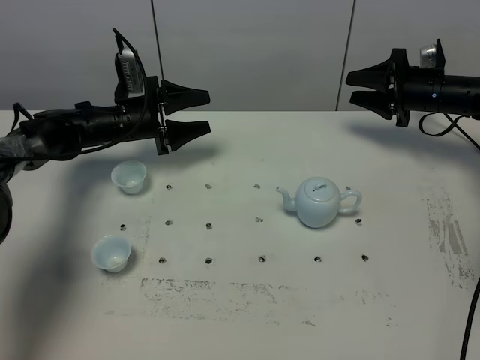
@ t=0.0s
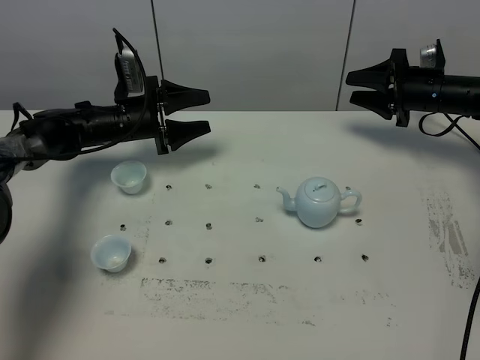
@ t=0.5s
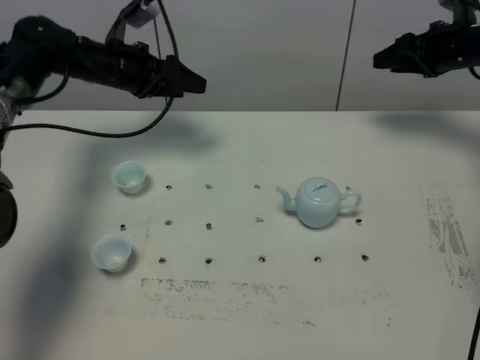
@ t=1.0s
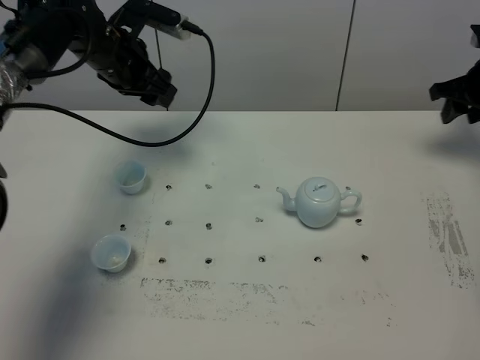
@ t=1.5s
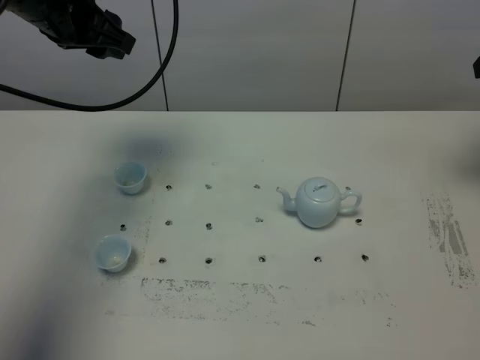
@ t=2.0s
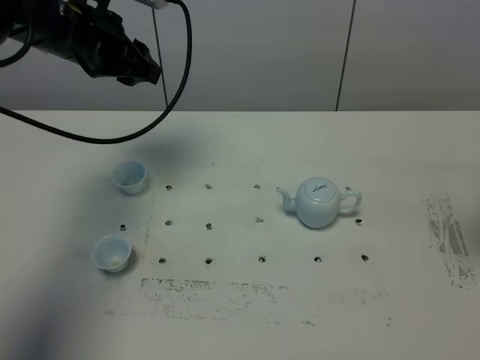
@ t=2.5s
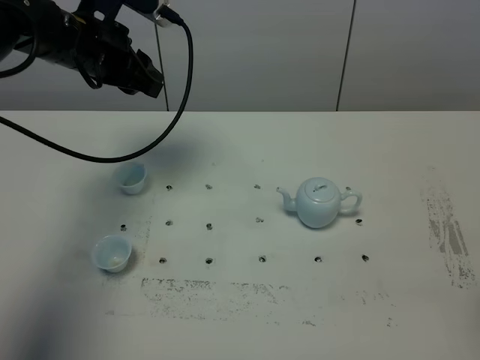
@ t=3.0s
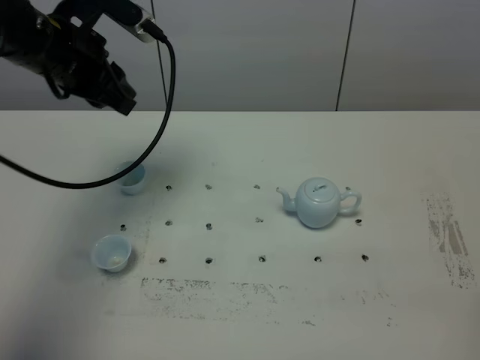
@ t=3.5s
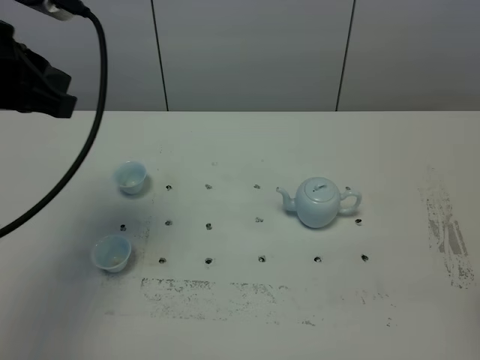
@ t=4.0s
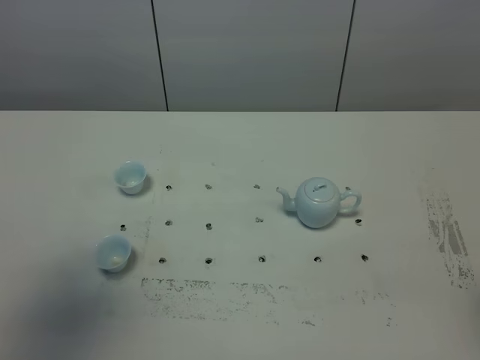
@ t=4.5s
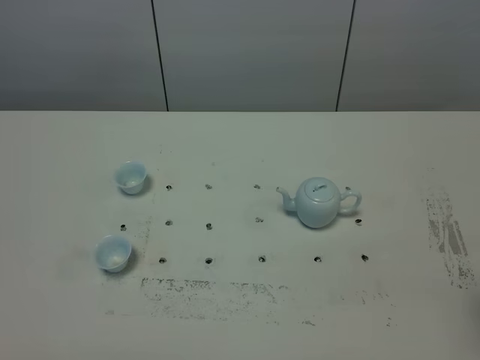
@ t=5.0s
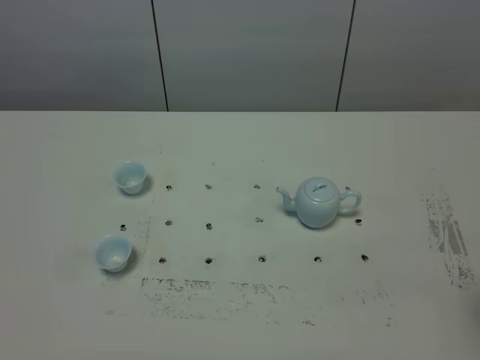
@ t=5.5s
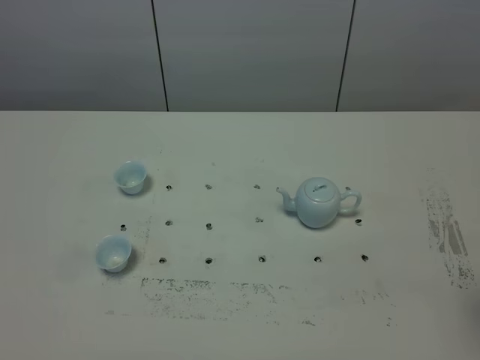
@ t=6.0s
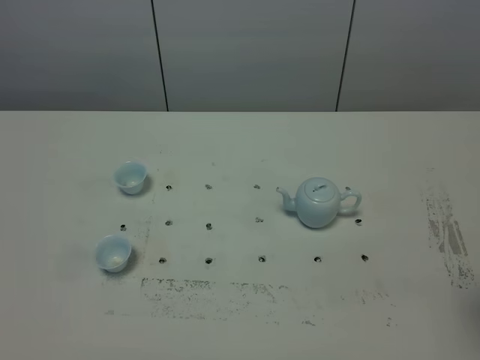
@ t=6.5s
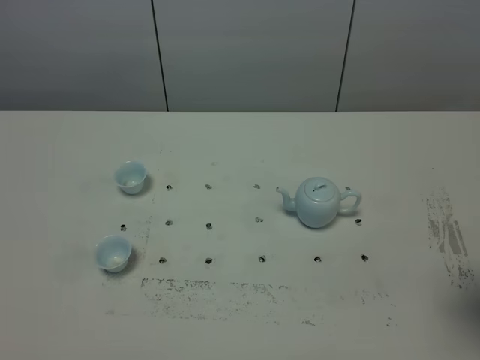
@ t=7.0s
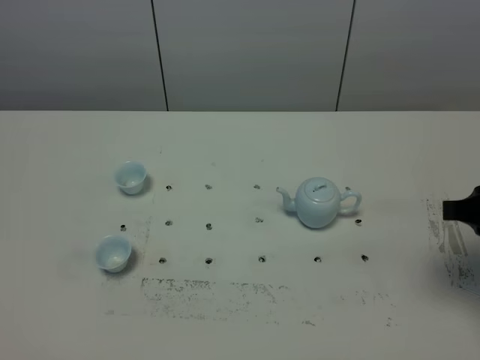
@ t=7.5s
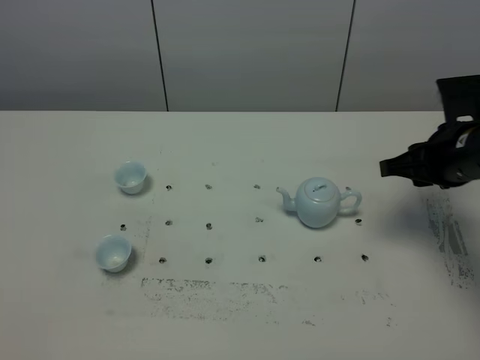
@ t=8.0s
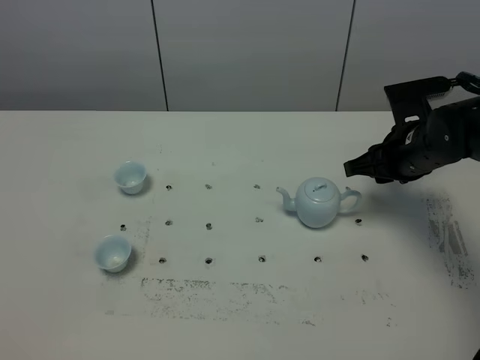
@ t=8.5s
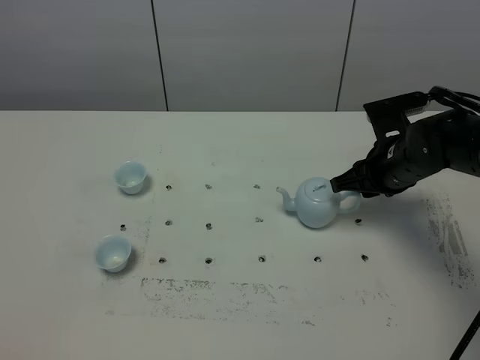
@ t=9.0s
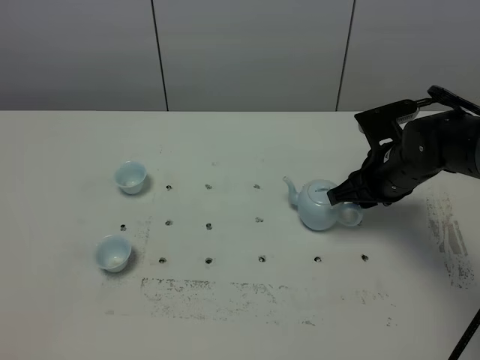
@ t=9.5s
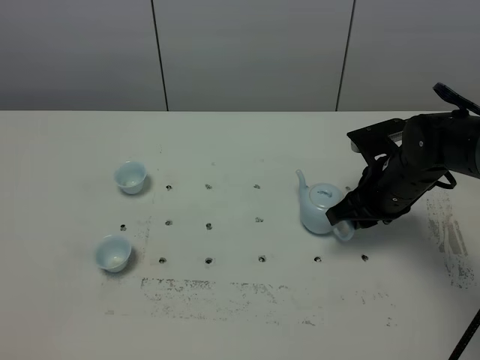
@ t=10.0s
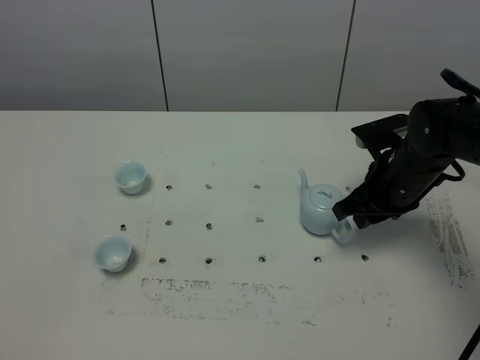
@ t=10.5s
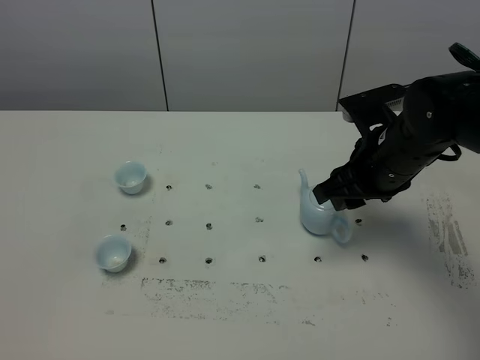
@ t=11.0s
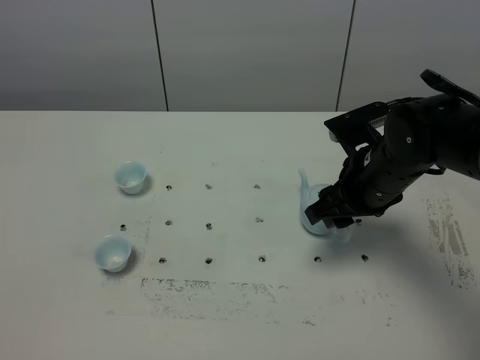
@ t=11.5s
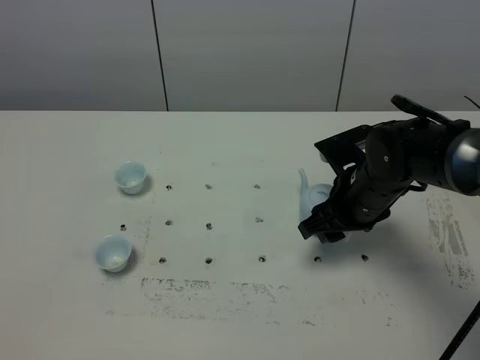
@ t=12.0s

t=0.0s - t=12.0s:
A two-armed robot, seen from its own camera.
Task of the whole recording: grasp the blue porcelain teapot and pour the tea into the two blue porcelain teacups one by one, put the blue porcelain teapot back in its original place.
t=0.0s - t=2.0s: The left gripper travels upward by about 25 cm, and closes. Meanwhile the right gripper shifts roughly 20 cm upward and backward.
t=2.0s - t=4.0s: The right gripper goes approximately 30 cm backward. The left gripper travels backward by approximately 15 cm, and closes up.
t=4.0s - t=6.0s: The left gripper heads backward and downward, covering approximately 30 cm.
t=6.0s - t=8.0s: The right gripper goes about 20 cm forward and downward.
t=8.0s - t=10.0s: The right gripper moves downward and to the left, roughly 10 cm.
t=10.0s - t=12.0s: The right gripper opens its fingers.

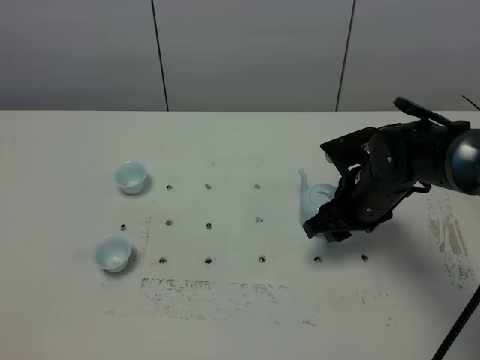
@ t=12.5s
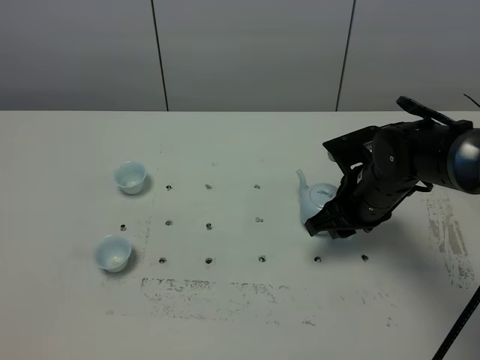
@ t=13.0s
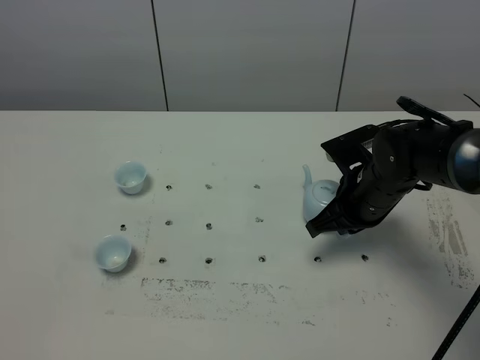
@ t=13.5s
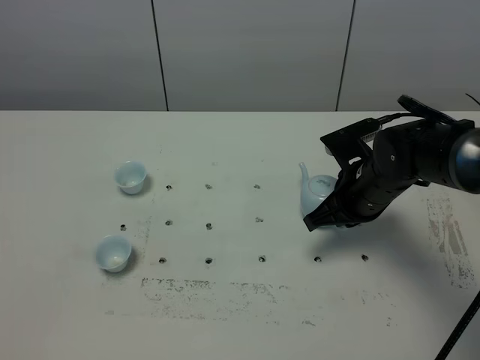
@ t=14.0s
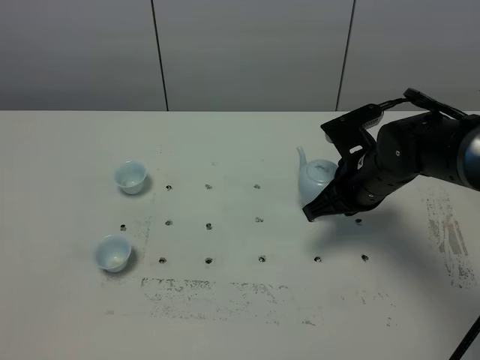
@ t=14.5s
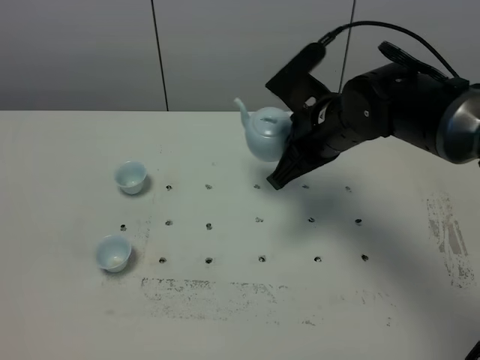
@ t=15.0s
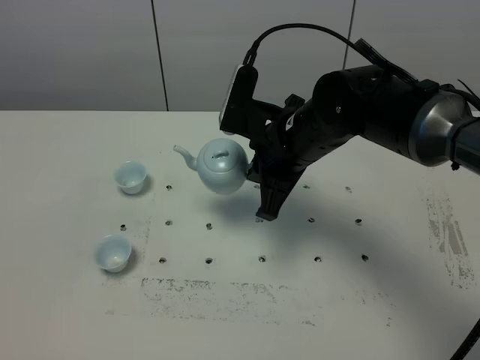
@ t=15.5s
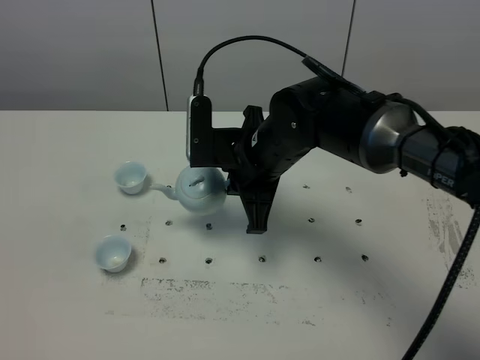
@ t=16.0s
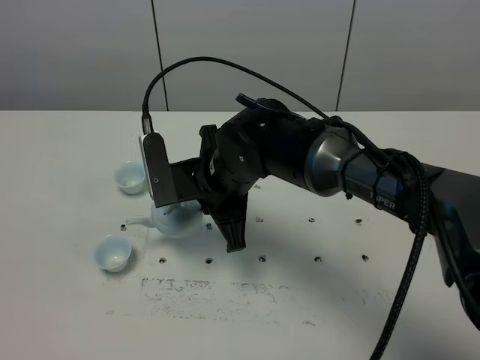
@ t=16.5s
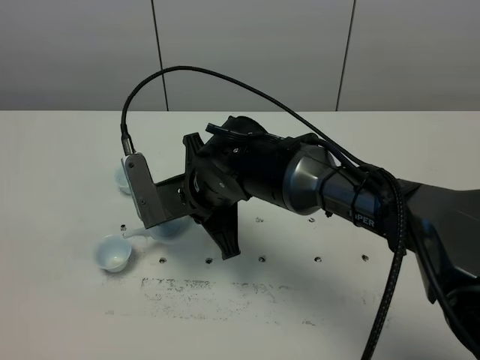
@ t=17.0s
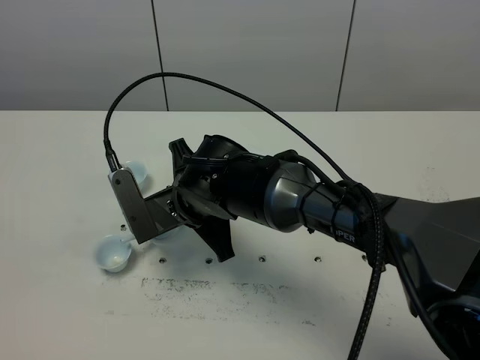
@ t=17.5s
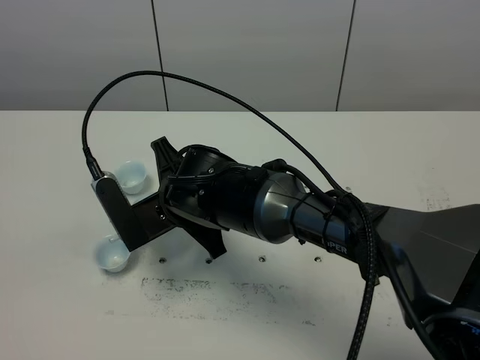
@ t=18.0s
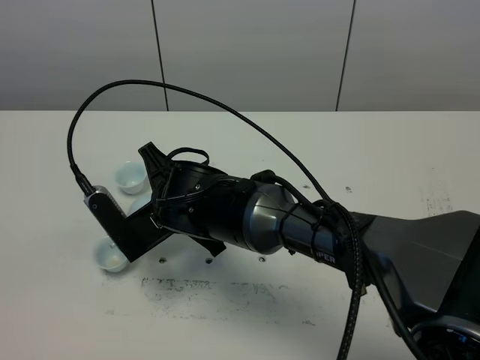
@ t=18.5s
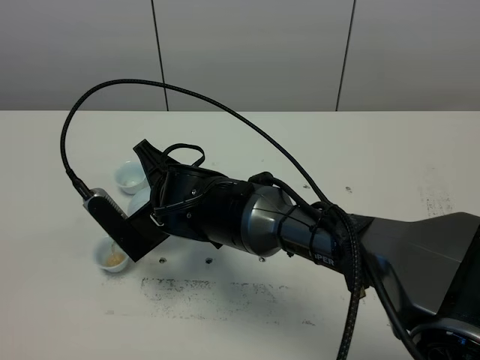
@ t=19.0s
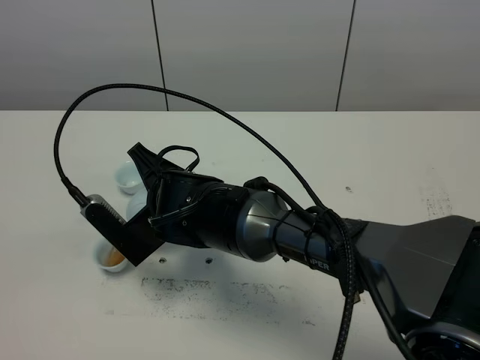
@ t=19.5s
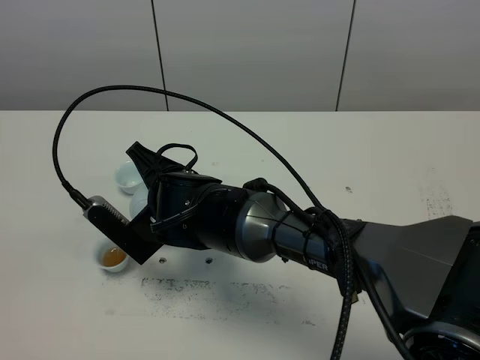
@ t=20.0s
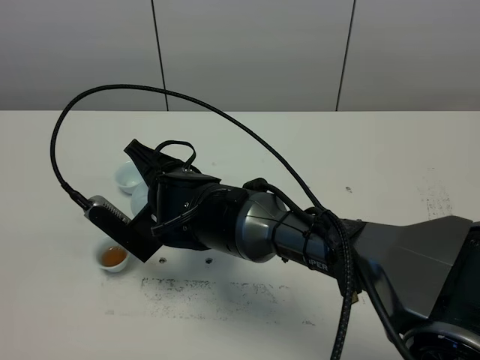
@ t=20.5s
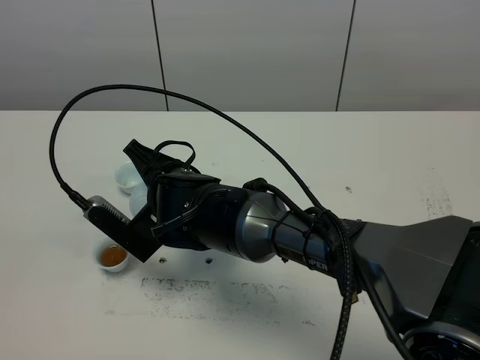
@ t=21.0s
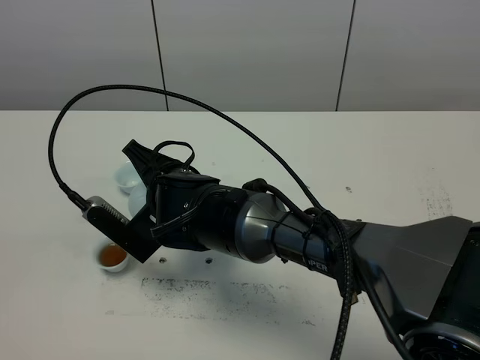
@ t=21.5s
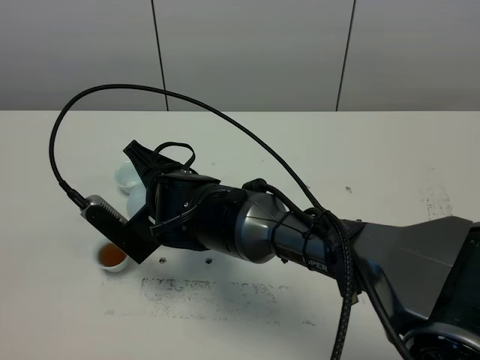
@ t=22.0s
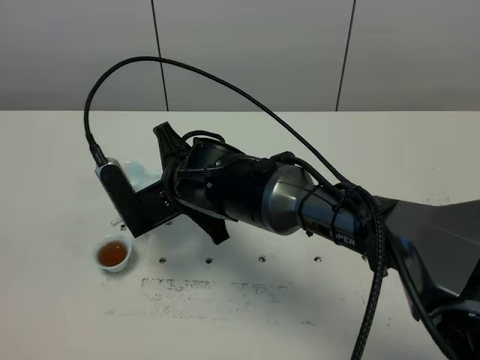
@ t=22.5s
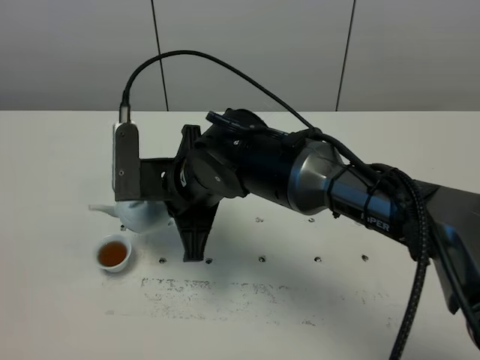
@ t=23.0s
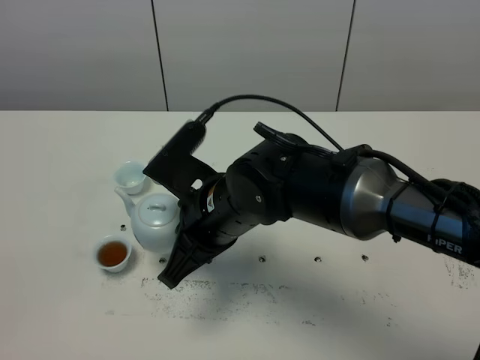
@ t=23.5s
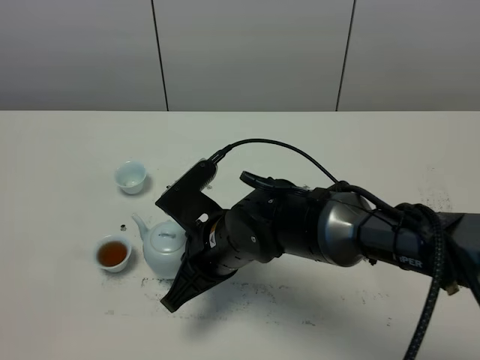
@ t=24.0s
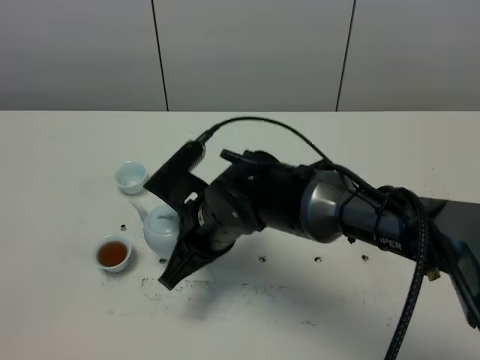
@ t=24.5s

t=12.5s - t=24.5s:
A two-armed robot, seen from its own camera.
Task of the whole recording: grasp the blue porcelain teapot and pour the tea into the two blue porcelain teacups one by one, put the blue porcelain teapot back in its original place.
Step, t=12.5s - t=14.5s: Pick up the teapot with the right gripper.
t=12.5s - t=14.5s: The right gripper closes.
t=14.5s - t=16.5s: The right gripper is displaced to the left by roughly 15 cm.
t=16.5s - t=18.5s: The right gripper heads to the left, covering roughly 5 cm.
t=18.5s - t=20.5s: The grippers stay close to where they were, moving slightly.

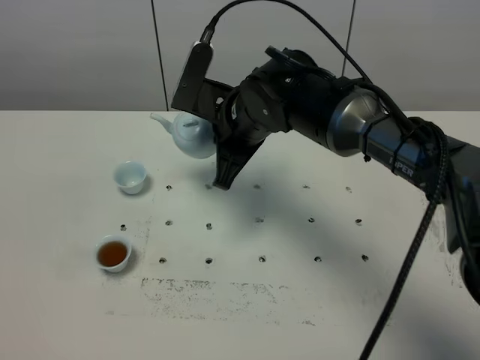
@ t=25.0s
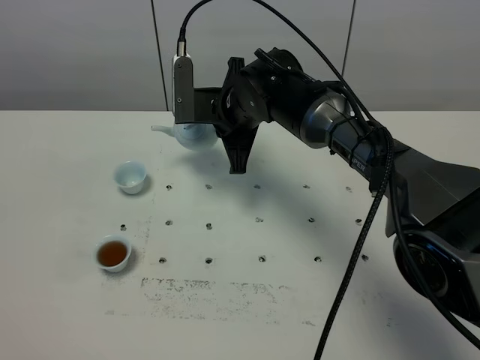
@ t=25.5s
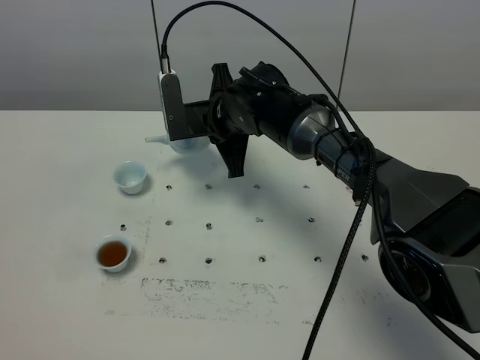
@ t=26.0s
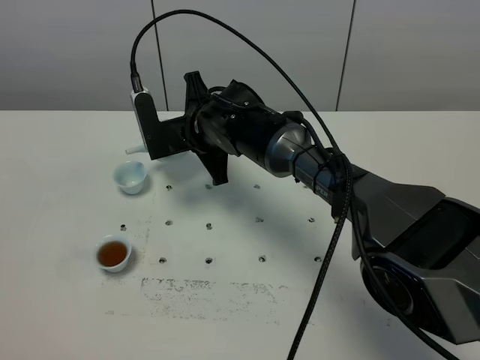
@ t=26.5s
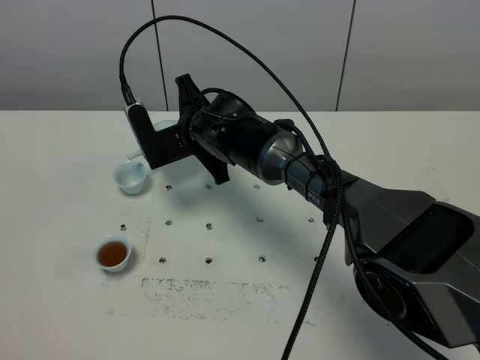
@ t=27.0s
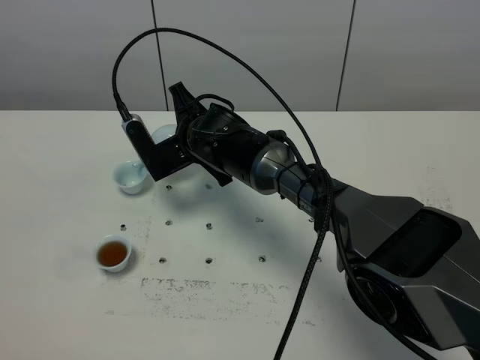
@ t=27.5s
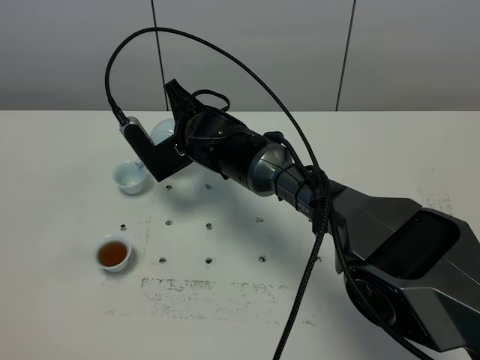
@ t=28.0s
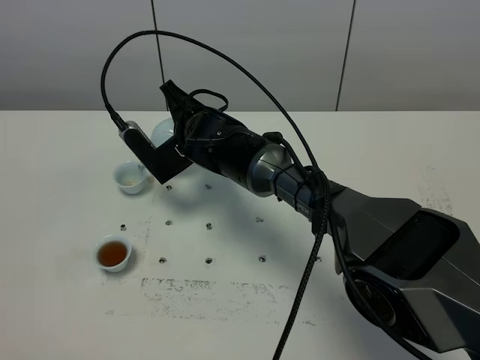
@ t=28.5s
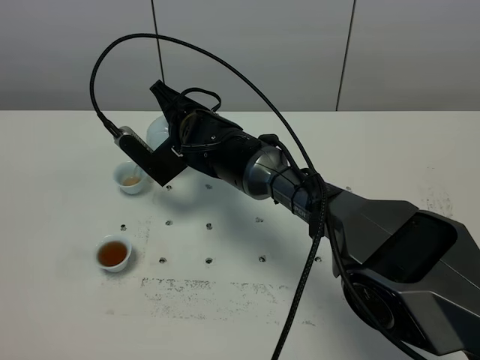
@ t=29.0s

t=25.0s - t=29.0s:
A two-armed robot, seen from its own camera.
Task of the whole recording: grasp the blue porcelain teapot and pour the tea into the two blue porcelain teacups one by one, put the blue porcelain teapot back in its original place.
t=25.0s - t=27.0s: The right gripper heads downward and to the left, covering approximately 10 cm.
